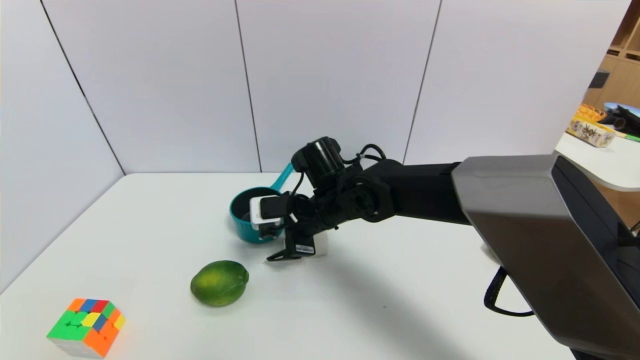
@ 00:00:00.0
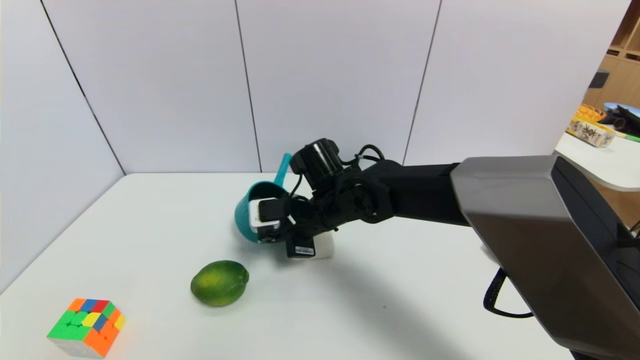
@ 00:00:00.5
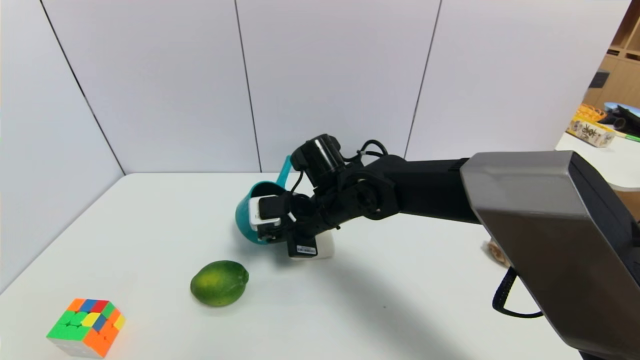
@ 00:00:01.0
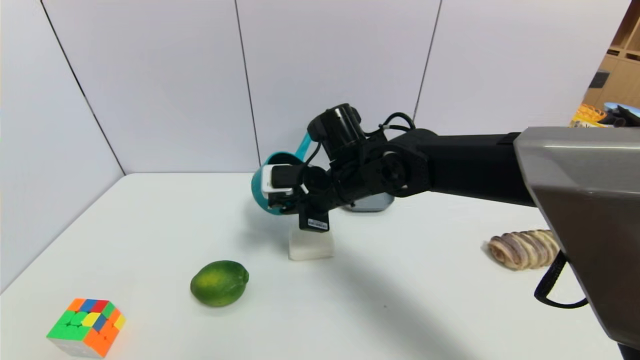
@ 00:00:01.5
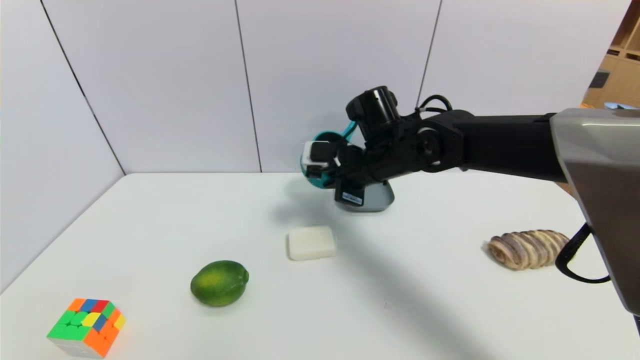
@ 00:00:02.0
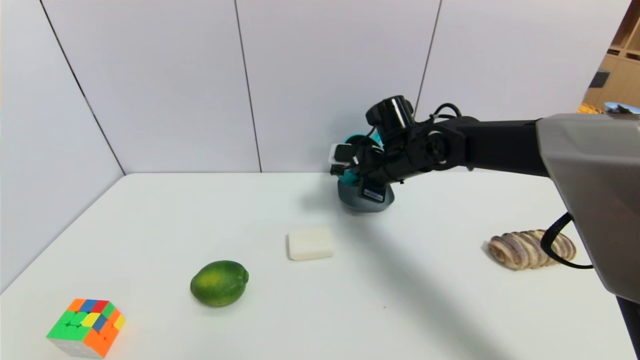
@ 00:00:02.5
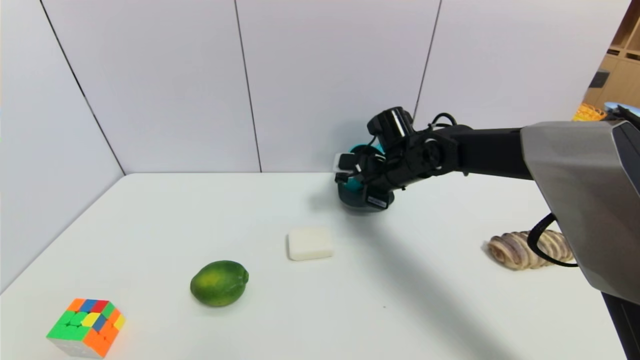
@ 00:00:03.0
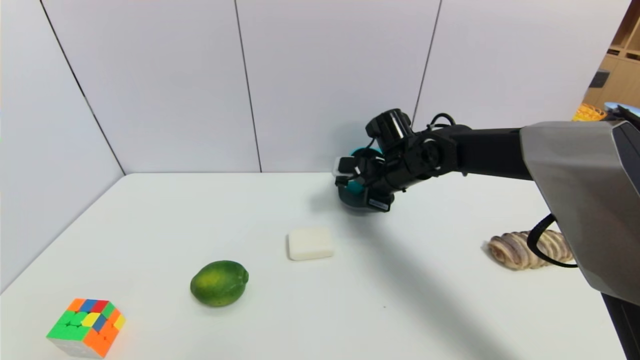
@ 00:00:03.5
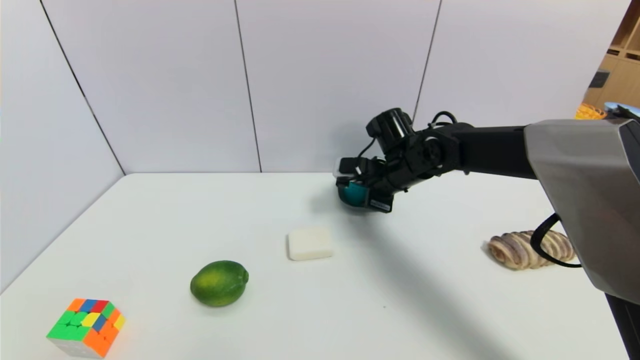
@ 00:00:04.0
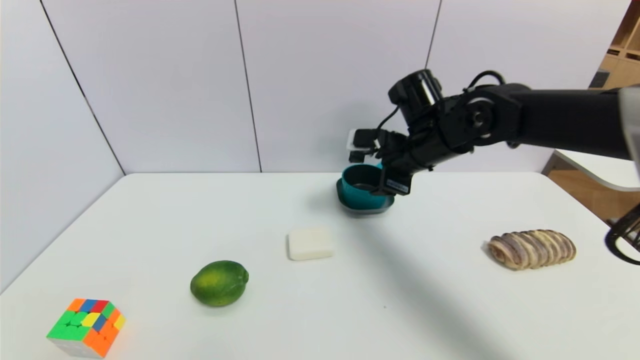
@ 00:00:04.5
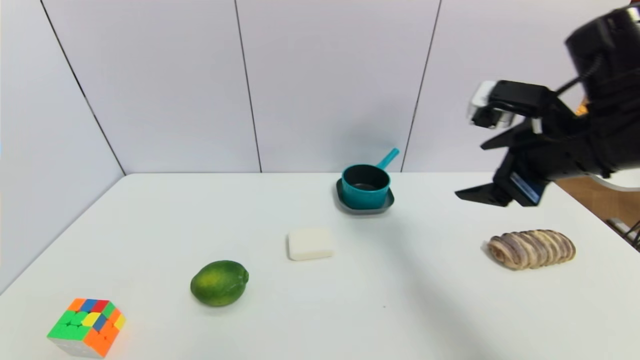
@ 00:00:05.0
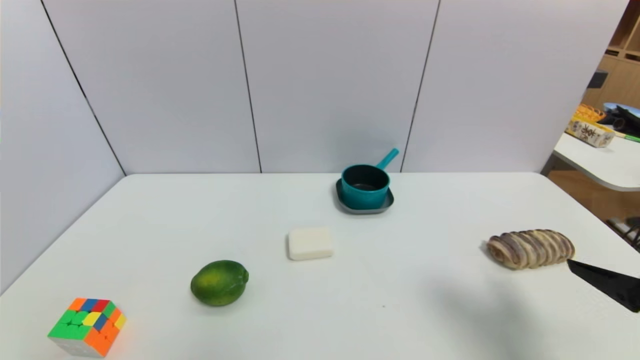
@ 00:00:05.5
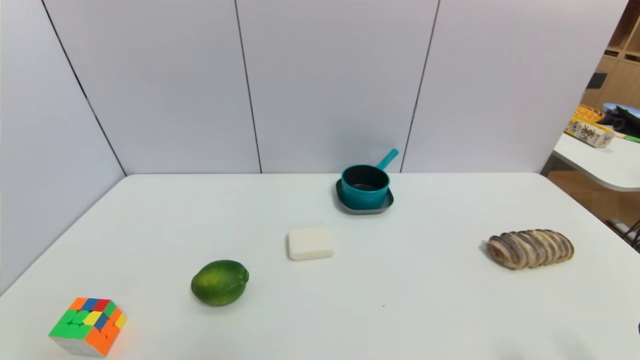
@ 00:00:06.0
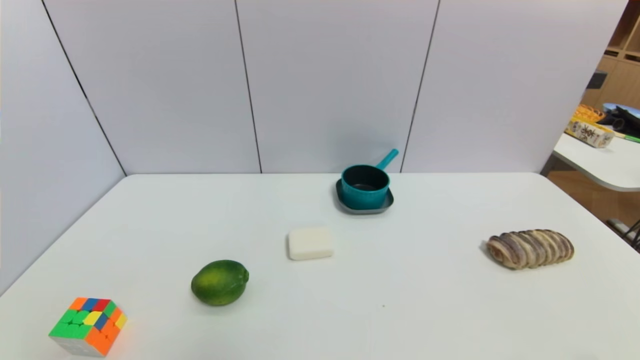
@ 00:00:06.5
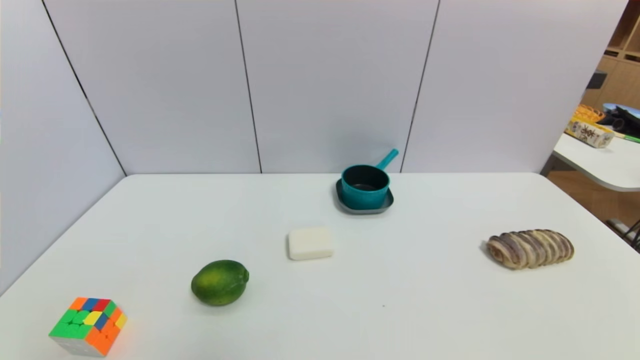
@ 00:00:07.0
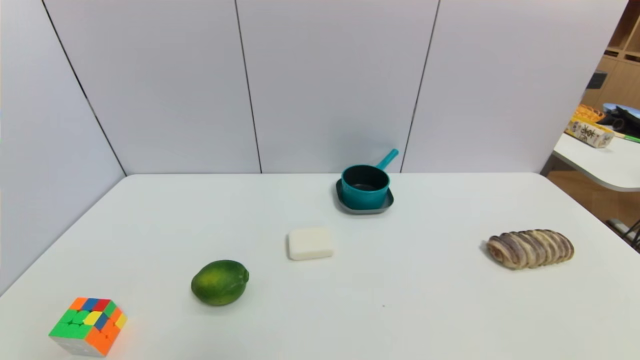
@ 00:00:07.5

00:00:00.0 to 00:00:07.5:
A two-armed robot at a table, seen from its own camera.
Task of the whole recording: use a gripper to pick the target object and place on the dish.
Step, 00:00:00.5 to 00:00:04.5: Place the blue pot on the dish with the right gripper.
00:00:00.0 to 00:00:02.0: The right gripper shifts roughly 10 cm to the right and upward, and closes.
00:00:02.0 to 00:00:04.0: The right gripper moves about 5 cm, and opens.
00:00:04.0 to 00:00:05.5: The right gripper is displaced backward and to the right by roughly 35 cm, and opens up.
00:00:05.5 to 00:00:07.5: The right gripper heads downward and backward, covering approximately 20 cm.
